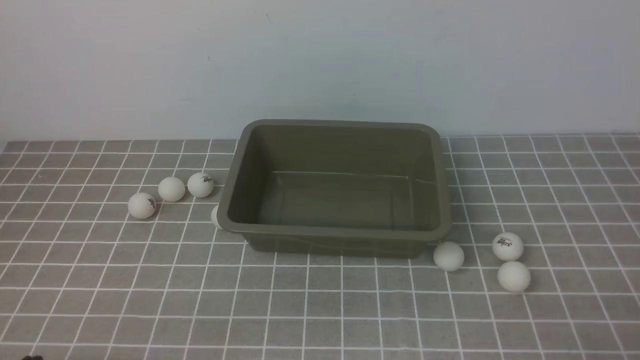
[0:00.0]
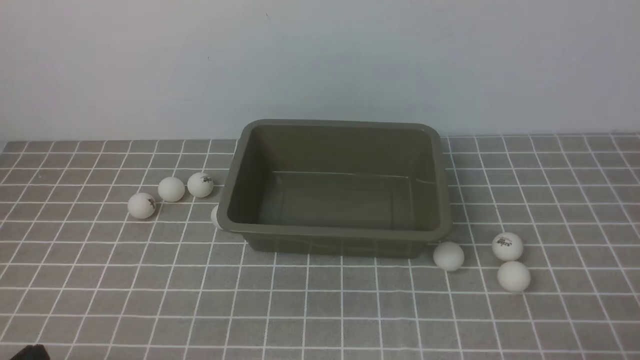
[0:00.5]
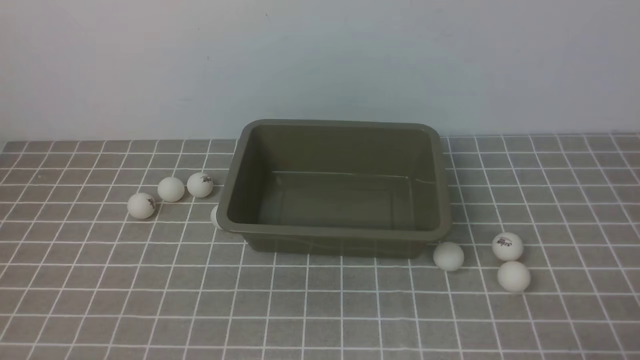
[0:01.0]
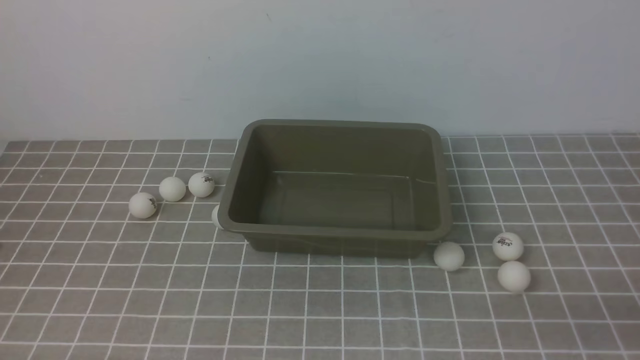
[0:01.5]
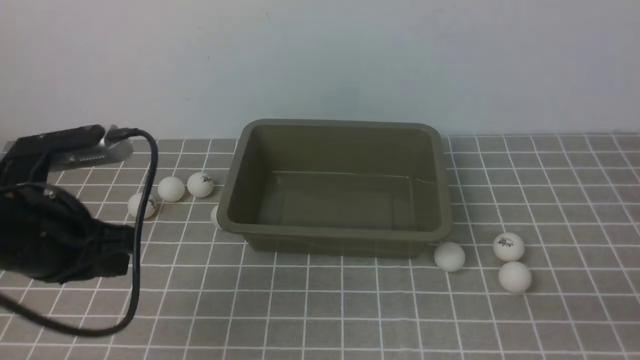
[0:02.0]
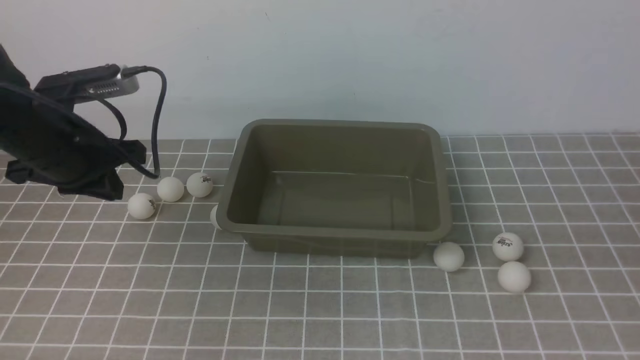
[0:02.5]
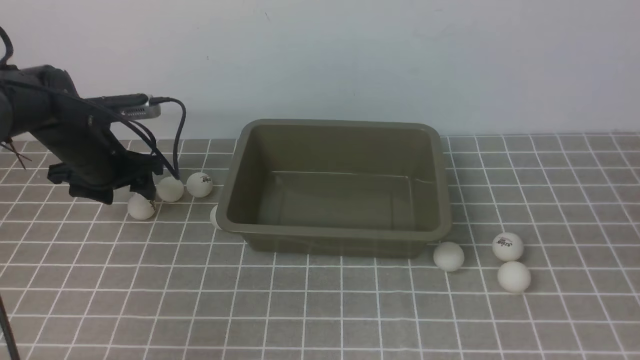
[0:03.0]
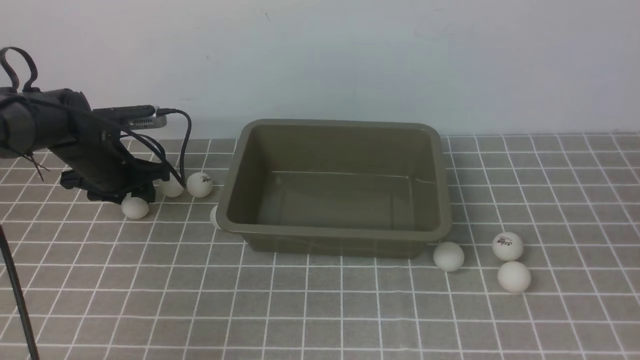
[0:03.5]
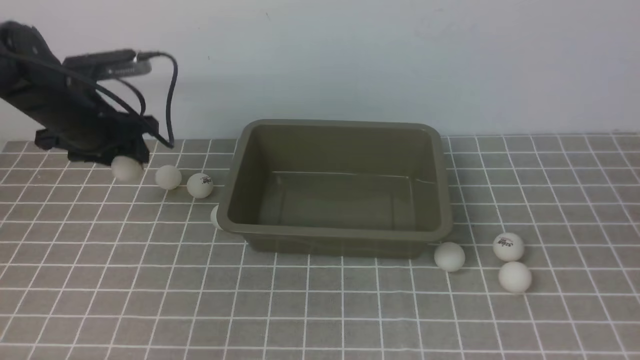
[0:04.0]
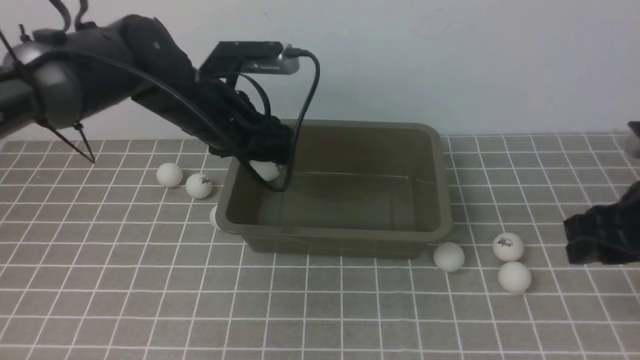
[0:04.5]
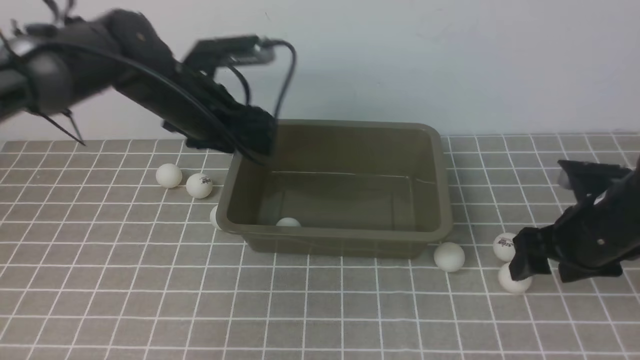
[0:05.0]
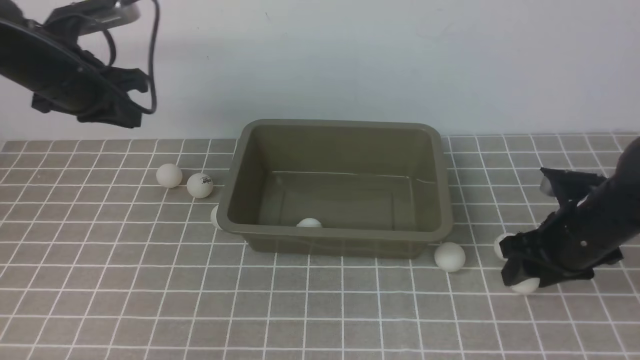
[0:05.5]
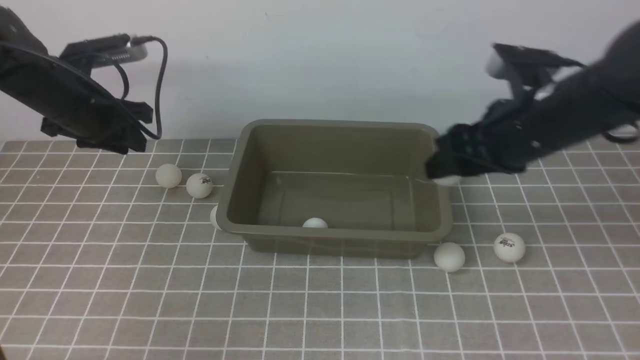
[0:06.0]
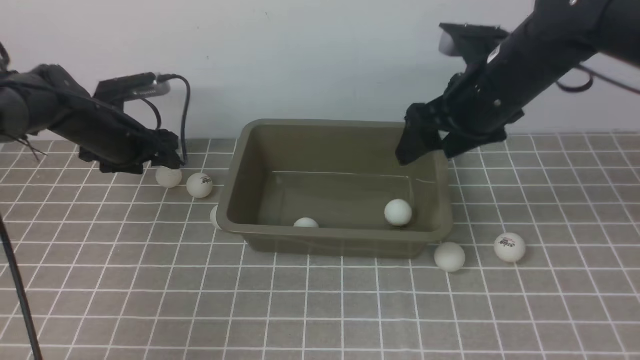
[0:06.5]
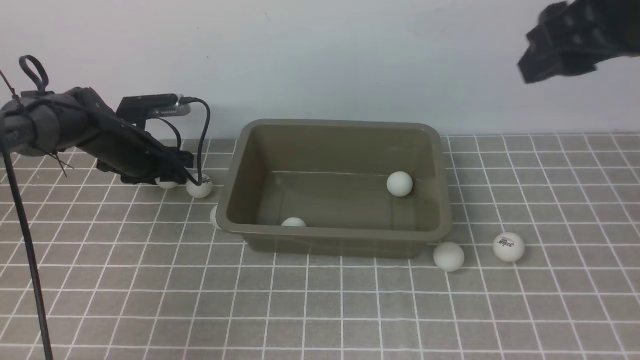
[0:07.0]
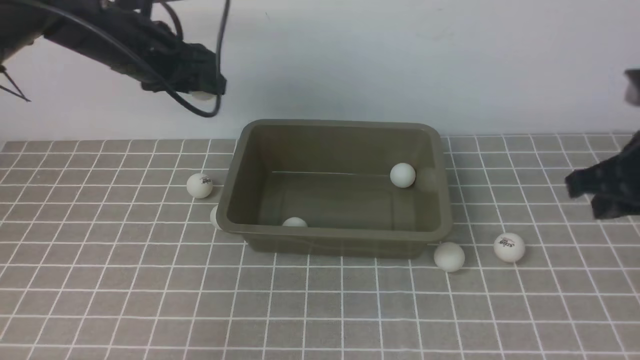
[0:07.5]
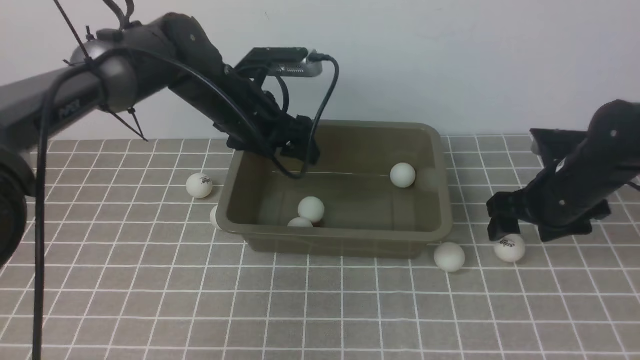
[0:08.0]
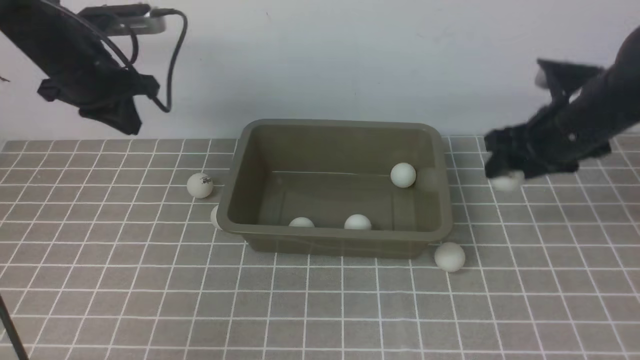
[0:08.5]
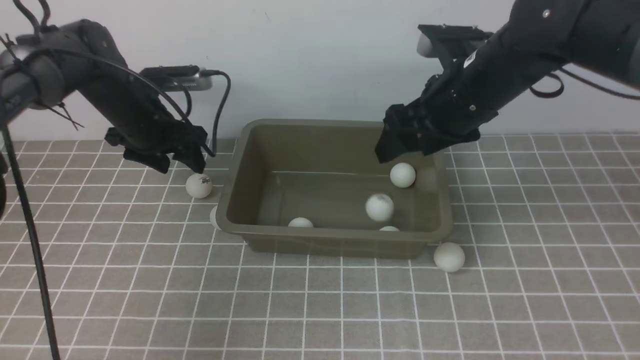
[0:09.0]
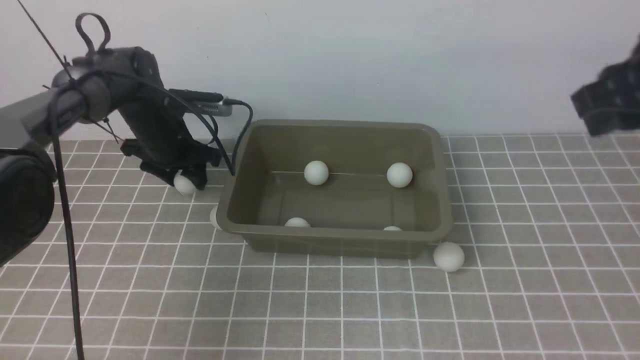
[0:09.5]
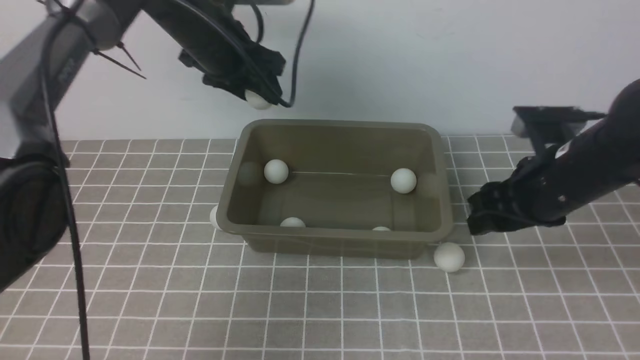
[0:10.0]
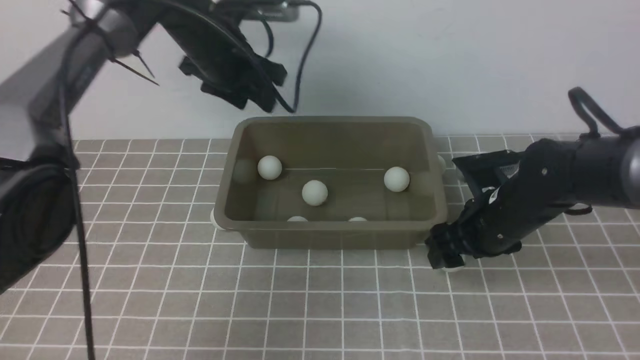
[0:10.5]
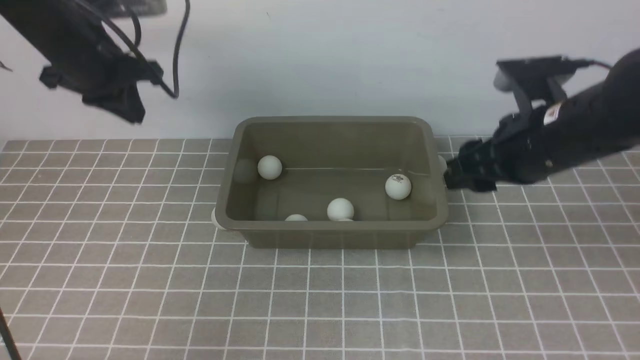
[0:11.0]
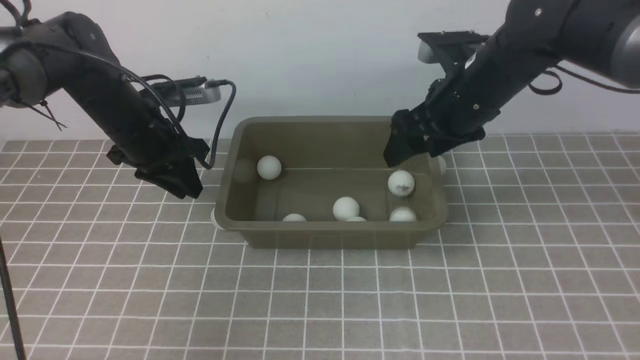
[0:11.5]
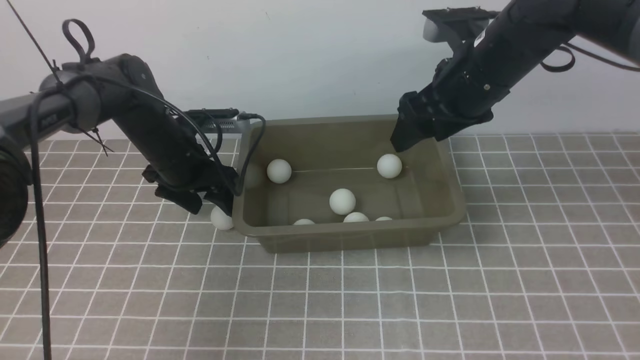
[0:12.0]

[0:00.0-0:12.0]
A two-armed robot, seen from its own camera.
Step, 0:00.0 to 0:03.5: use the left arm to clamp the table tennis ball closest to it.
Step, 0:05.0 to 0:05.5: use the right arm to clamp the table tennis ball closest to it.
Step, 0:06.0 to 0:06.5: use the right arm to put the table tennis ball into the box.
Step, 0:07.5 to 0:08.0: use the left arm to put the table tennis ball into the box.
Step, 0:08.5 to 0:09.0: use the right arm to put the table tennis ball into the box.
Step, 0:10.5 to 0:11.0: use the right arm to clamp the table tennis ball closest to it.
0:00.0 to 0:02.0: The right gripper travels upward by roughly 5 cm, while the left gripper shifts roughly 20 cm forward and upward.
0:02.0 to 0:04.0: The left gripper moves forward, some 20 cm, and opens up; the right gripper travels upward and forward by roughly 10 cm.
0:04.0 to 0:06.0: The left gripper moves roughly 10 cm to the right and comes back, and closes, then opens again; the right gripper moves forward and to the left, roughly 20 cm, and opens up.
0:06.0 to 0:08.0: The right gripper shifts some 10 cm downward and to the right, and closes, then reopens; the left gripper moves to the right, some 15 cm, and opens.
0:08.0 to 0:10.0: The right gripper goes upward and returns, roughly 15 cm each way, while the left gripper travels to the left and back again, about 15 cm each way, and closes, then reopens.
0:10.0 to 0:12.0: The right gripper shifts about 15 cm forward, upward and to the left; the left gripper moves downward and to the left, some 15 cm, and closes, then opens again.

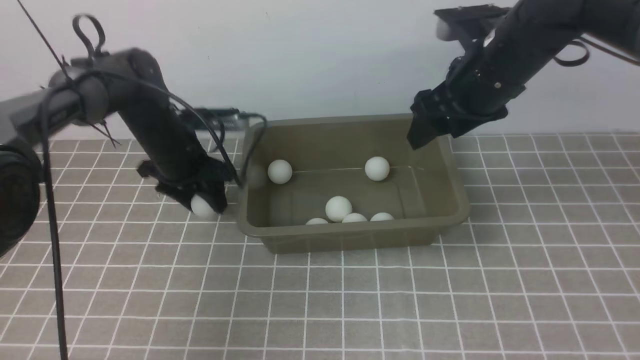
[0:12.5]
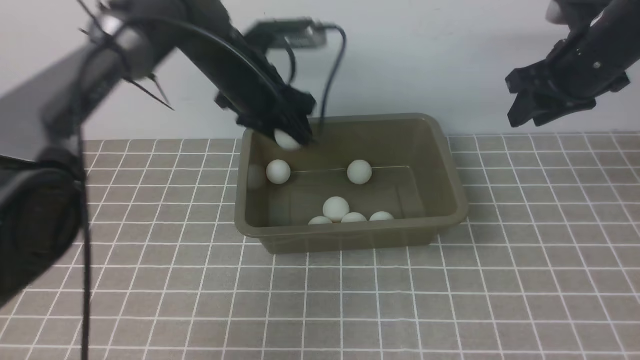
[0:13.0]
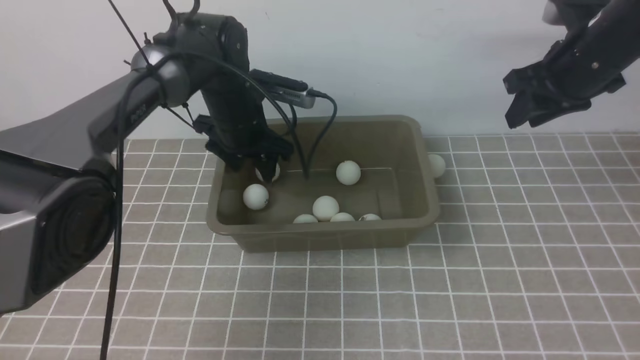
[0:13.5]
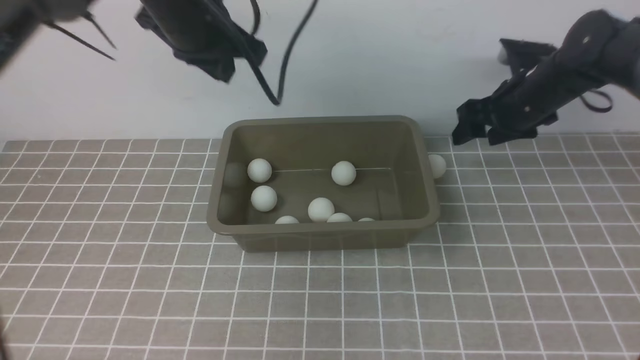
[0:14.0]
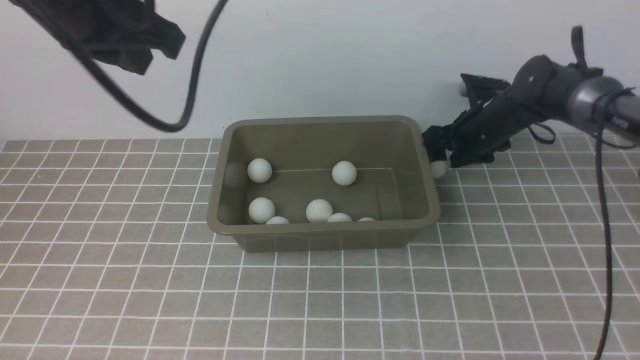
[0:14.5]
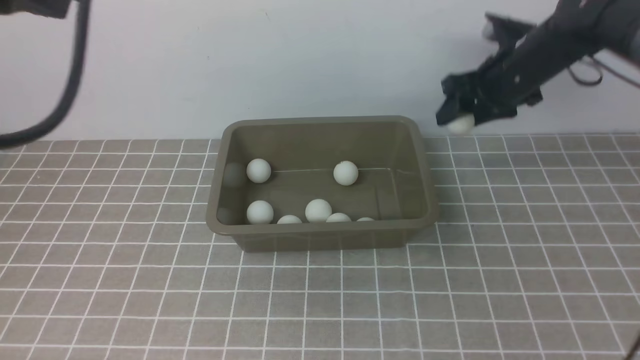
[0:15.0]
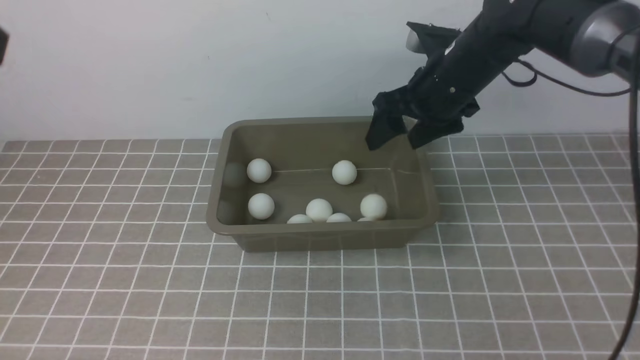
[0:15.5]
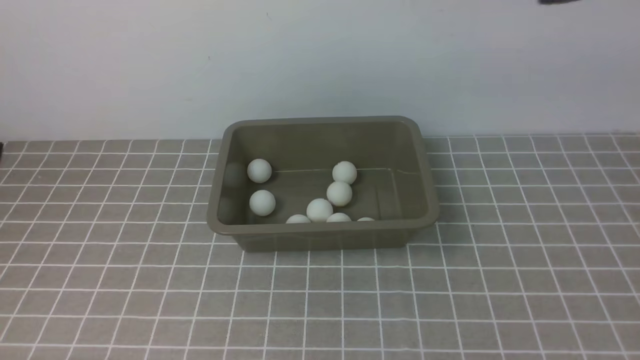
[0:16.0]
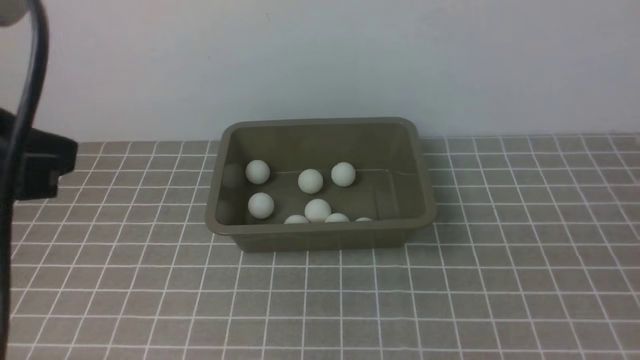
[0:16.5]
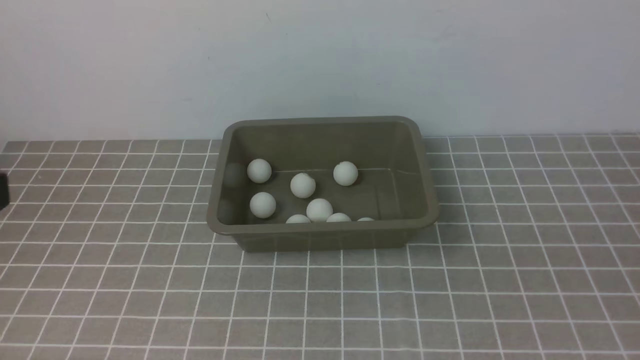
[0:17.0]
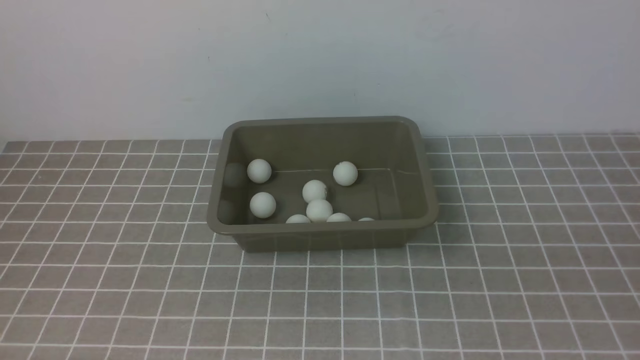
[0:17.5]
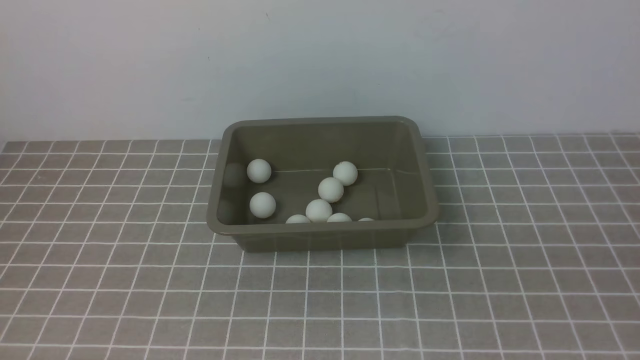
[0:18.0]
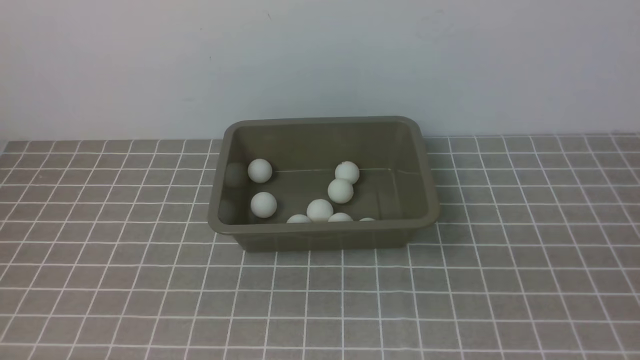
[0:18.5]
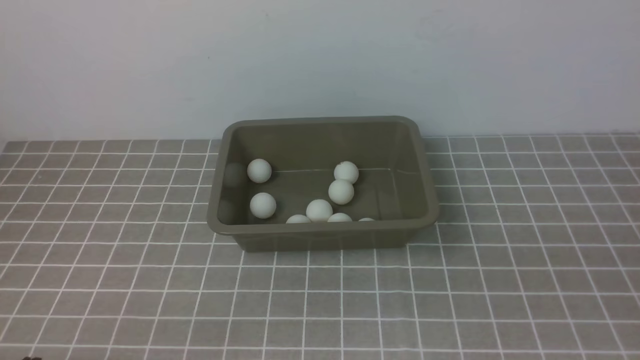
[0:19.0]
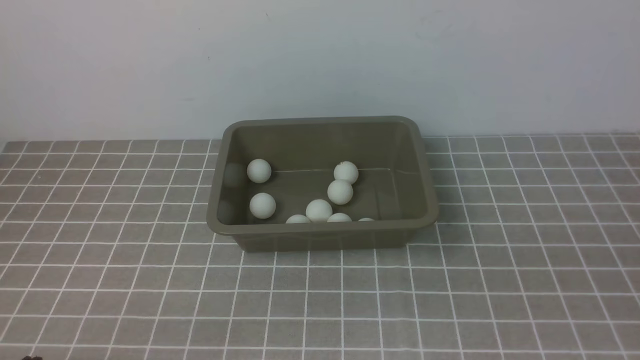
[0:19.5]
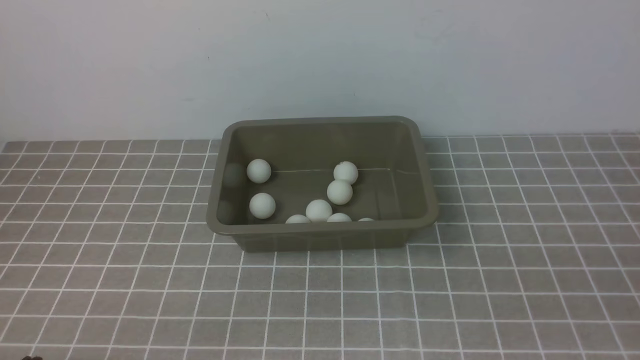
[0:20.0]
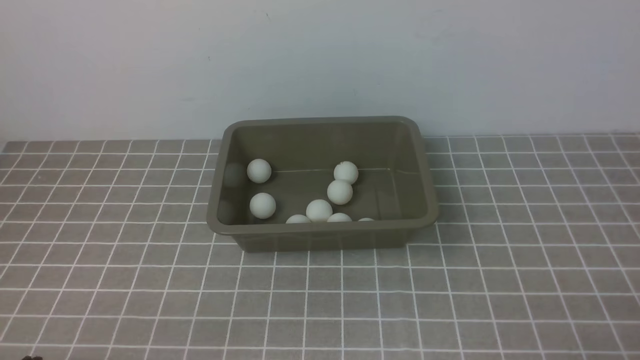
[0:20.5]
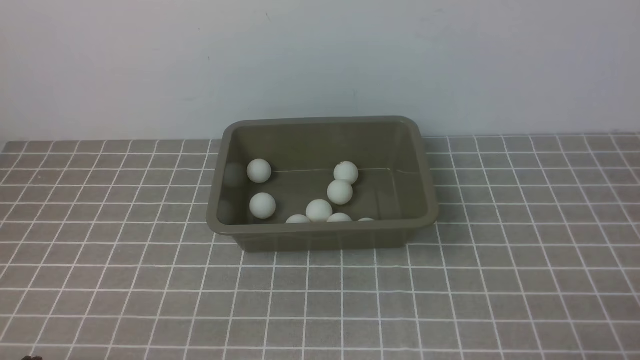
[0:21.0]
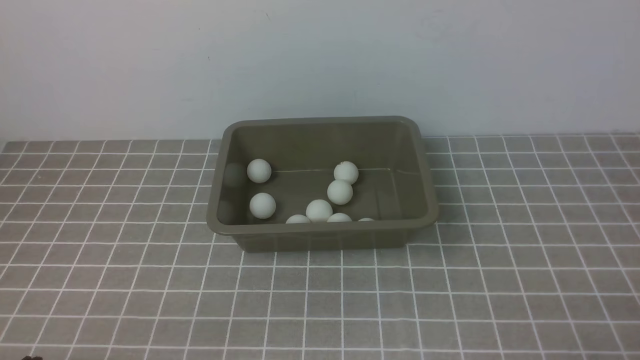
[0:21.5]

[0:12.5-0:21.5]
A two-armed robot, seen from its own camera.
Step, 0:13.0 to 0:13.5: use the left arm to put the table tennis ball into the box.
Step, 0:14.0 to 0:15.0: use the right arm to clamp the table tennis ball closest to it.
0:12.5 to 0:14.5: The right gripper heads downward and forward, covering some 20 cm, and closes, then reopens. The left gripper is displaced upward and backward by some 30 cm, and closes its fingers.
0:14.5 to 0:17.0: The left gripper moves backward, roughly 20 cm, while the right gripper shifts some 50 cm backward, and closes its fingers.
